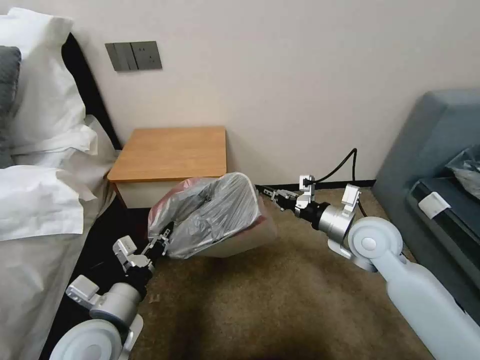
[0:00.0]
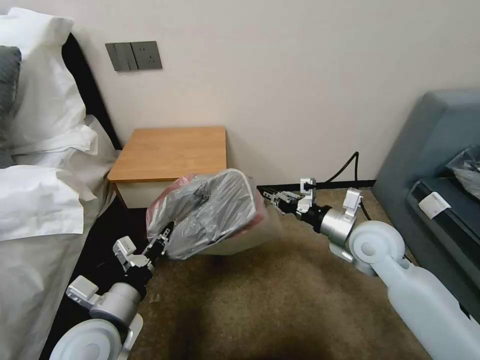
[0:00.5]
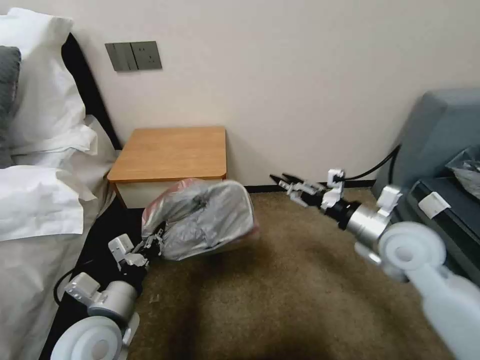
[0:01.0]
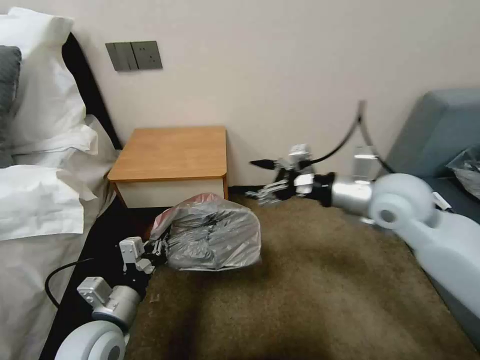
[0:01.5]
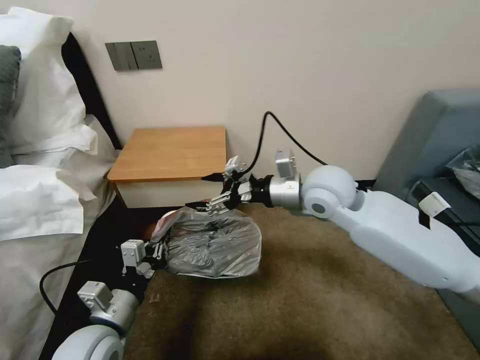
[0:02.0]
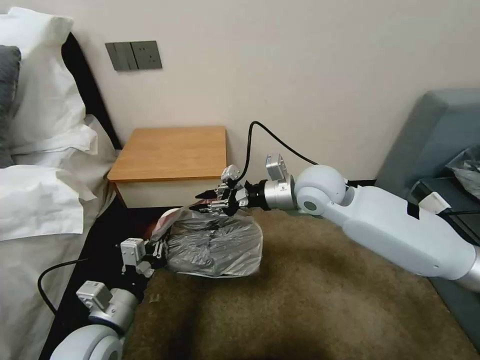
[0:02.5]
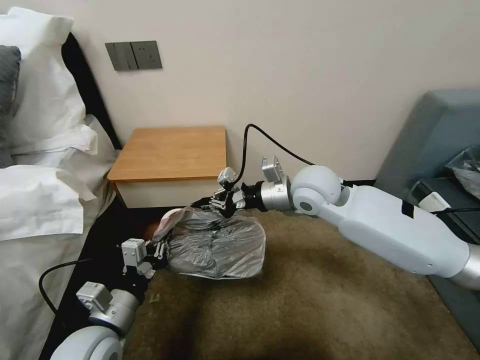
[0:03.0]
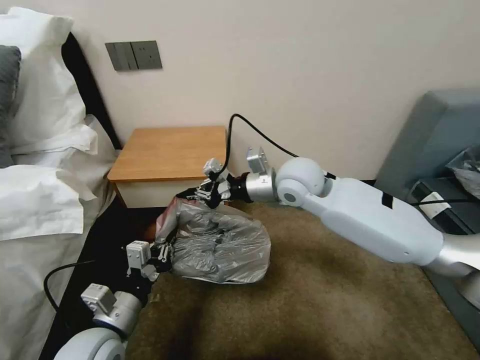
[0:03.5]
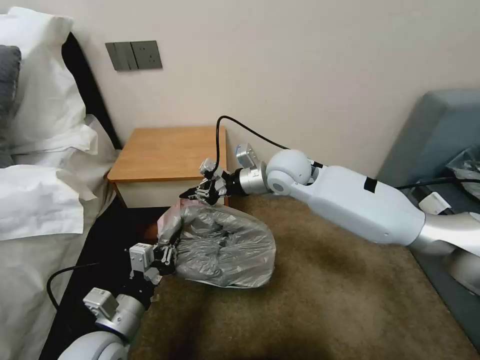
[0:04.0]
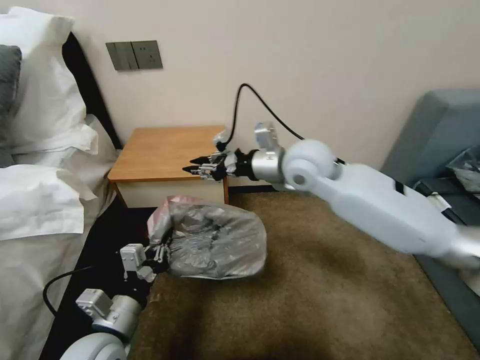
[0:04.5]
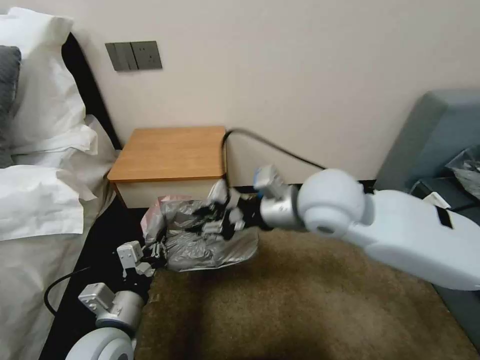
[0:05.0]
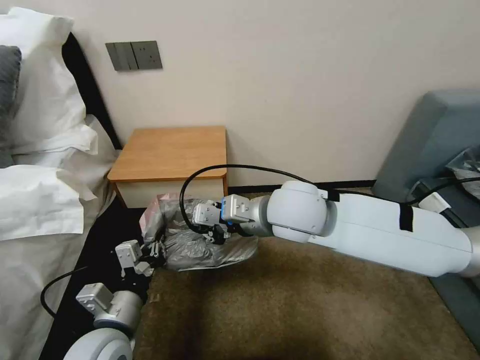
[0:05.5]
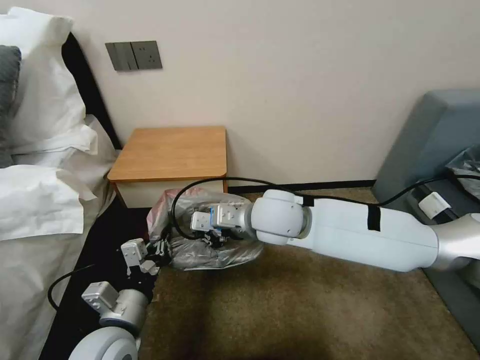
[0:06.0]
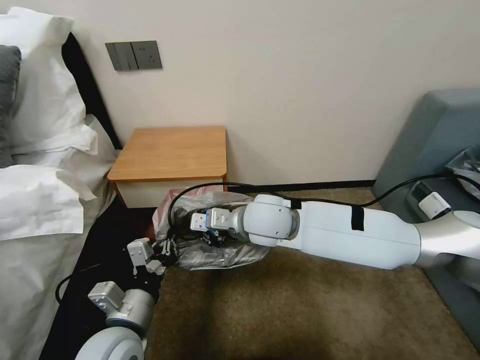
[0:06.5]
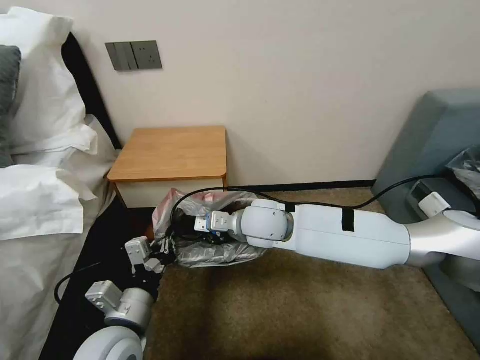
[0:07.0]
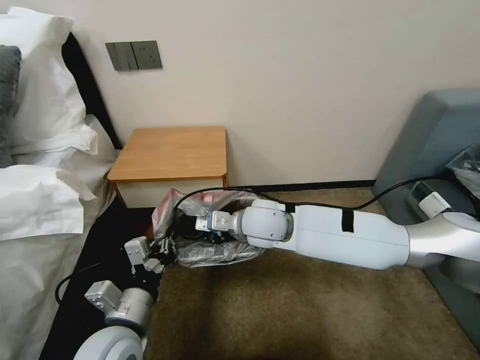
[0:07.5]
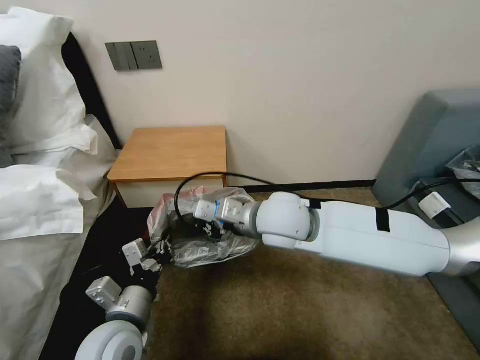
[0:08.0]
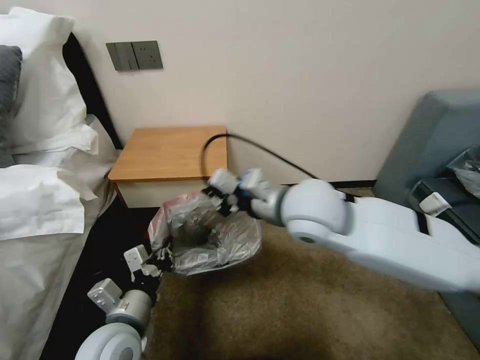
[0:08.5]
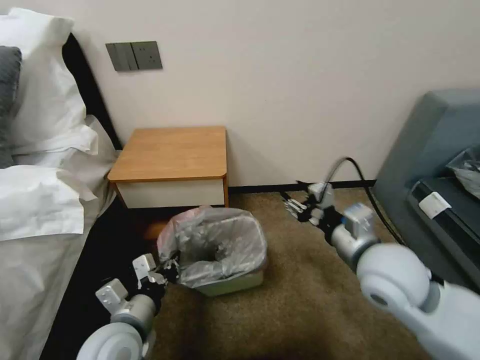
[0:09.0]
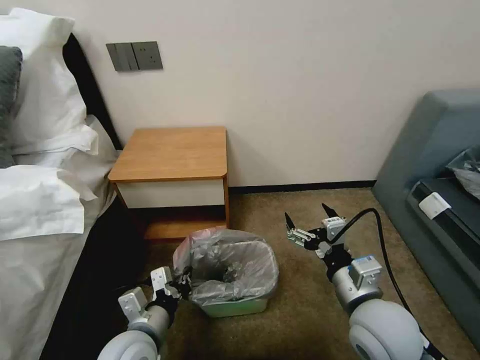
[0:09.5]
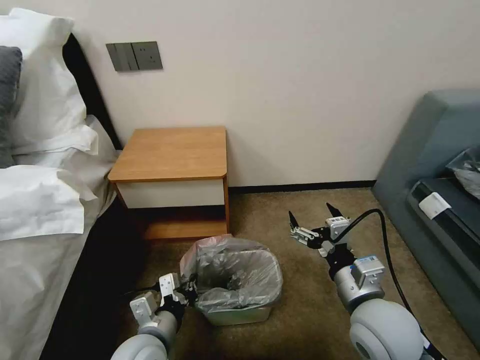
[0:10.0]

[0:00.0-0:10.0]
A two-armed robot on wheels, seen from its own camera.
Task of the whole recording: Pick up the garbage bag from the table and place it over the trash can.
0:00.0 to 0:02.0: The right gripper goes some 15 cm to the left, upward and forward, and opens.
0:02.0 to 0:04.0: The right gripper shifts roughly 10 cm forward and to the left, and closes.
0:04.0 to 0:06.0: The right gripper goes roughly 10 cm backward, and opens, then closes again.
0:06.0 to 0:08.0: There are only small adjustments of the grippers.
0:08.0 to 0:10.0: The right gripper shifts roughly 25 cm to the right, backward and downward, and opens its fingers; the left gripper is displaced downward by approximately 5 cm.

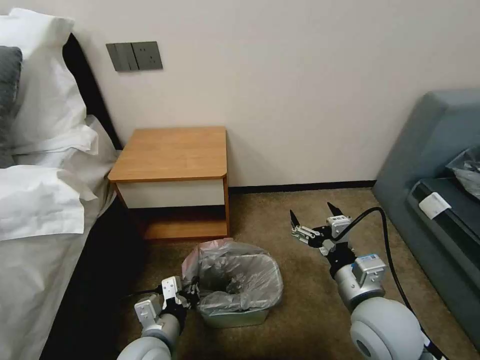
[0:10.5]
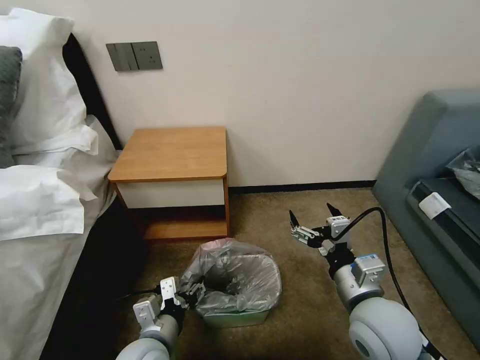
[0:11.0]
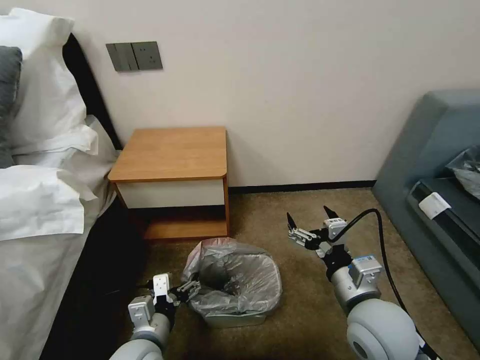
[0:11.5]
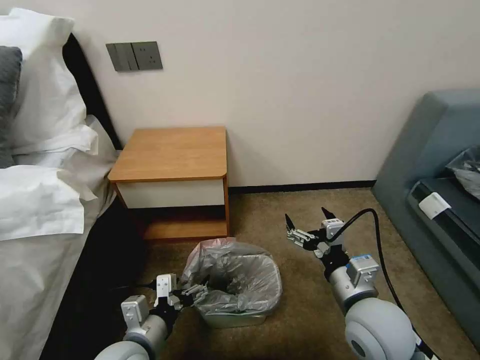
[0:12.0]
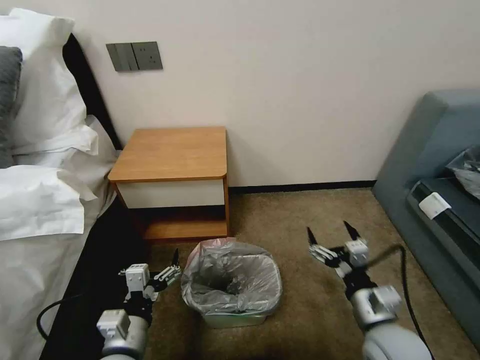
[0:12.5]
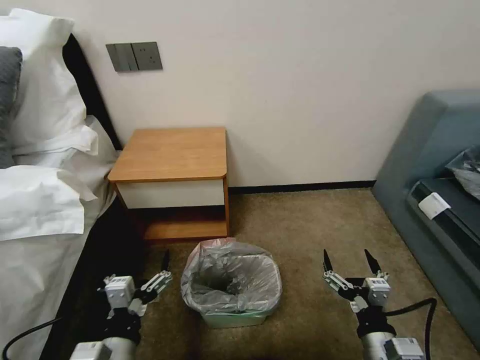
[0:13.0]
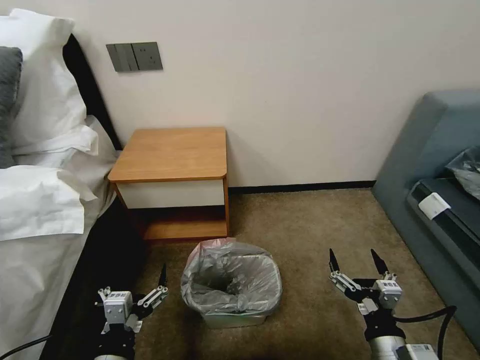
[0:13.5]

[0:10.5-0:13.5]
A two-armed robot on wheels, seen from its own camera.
Task of the whole recording: Pick up the garbage bag from the table and place it over the trash can.
0:10.5 to 0:12.0: The left gripper opens its fingers.
0:12.0 to 0:13.5: The left gripper is displaced backward by some 10 cm, while the right gripper goes some 15 cm backward and downward.

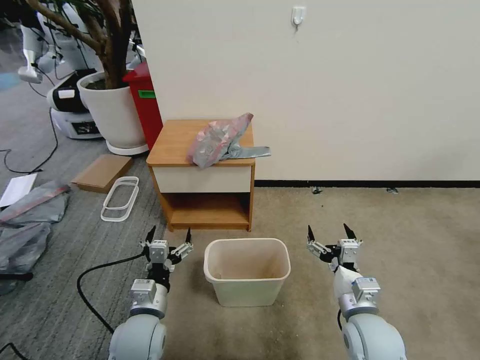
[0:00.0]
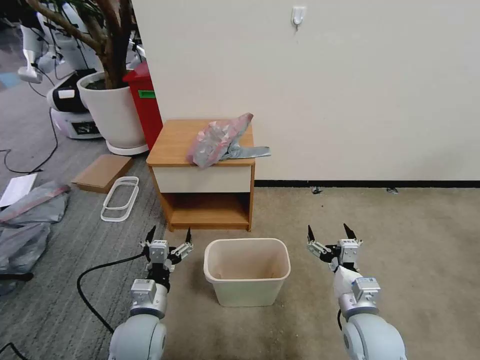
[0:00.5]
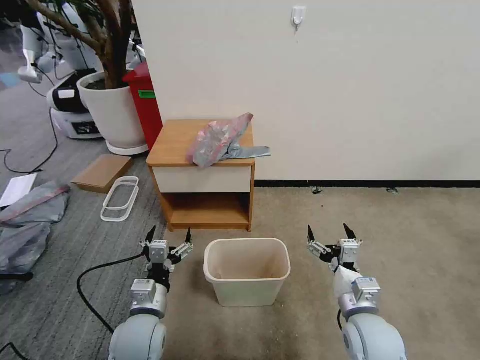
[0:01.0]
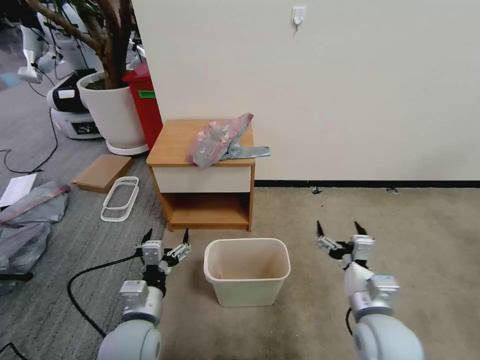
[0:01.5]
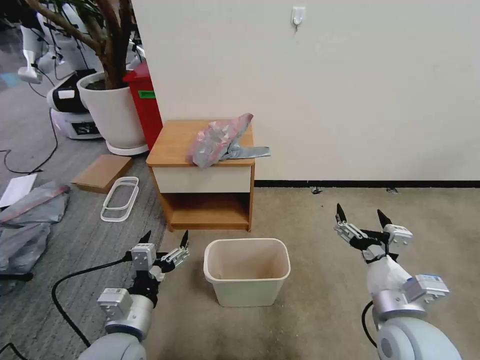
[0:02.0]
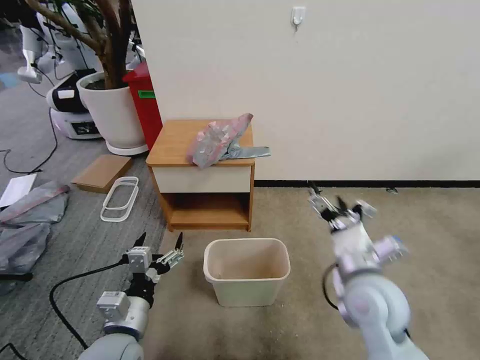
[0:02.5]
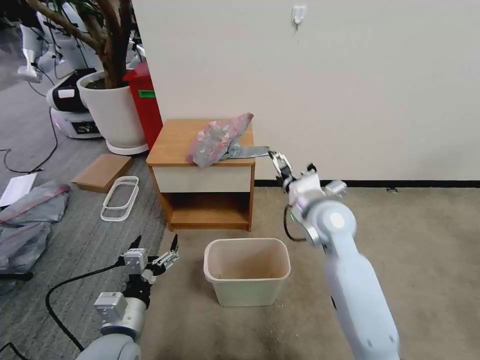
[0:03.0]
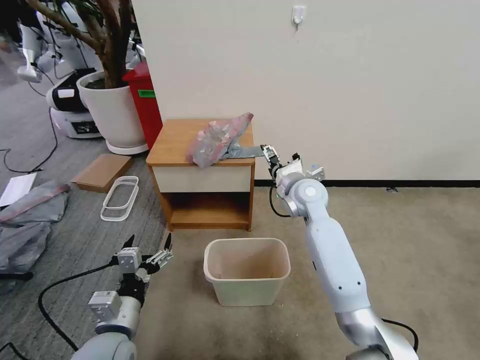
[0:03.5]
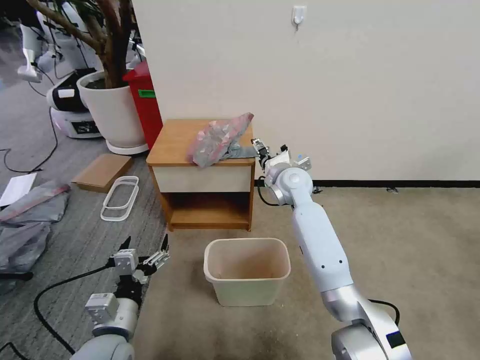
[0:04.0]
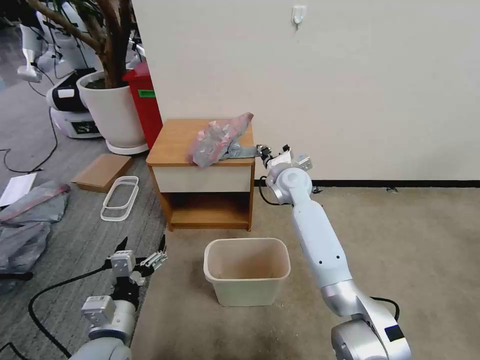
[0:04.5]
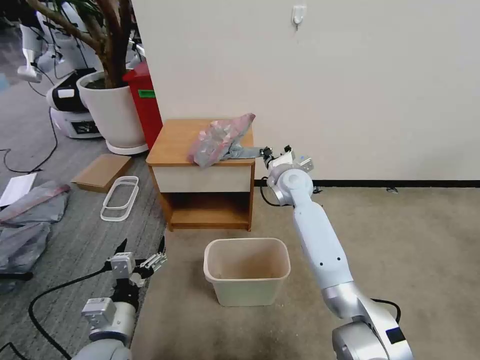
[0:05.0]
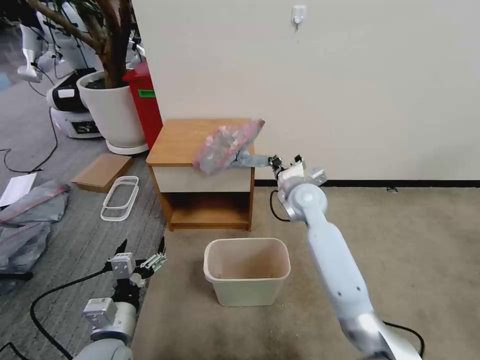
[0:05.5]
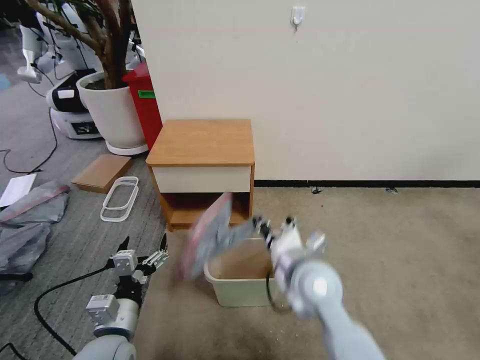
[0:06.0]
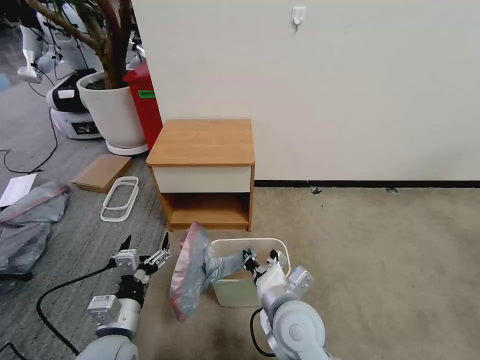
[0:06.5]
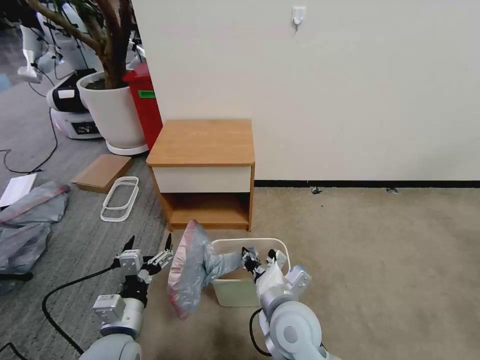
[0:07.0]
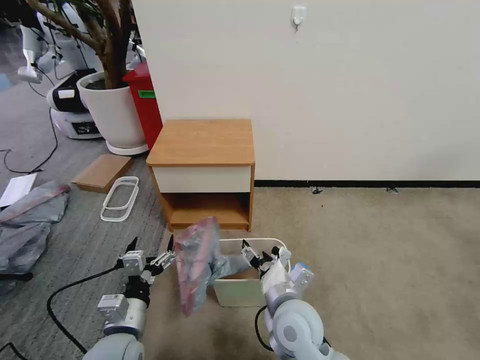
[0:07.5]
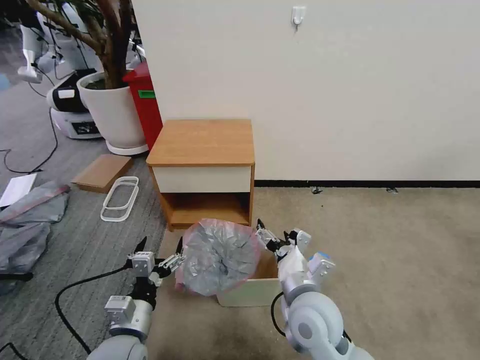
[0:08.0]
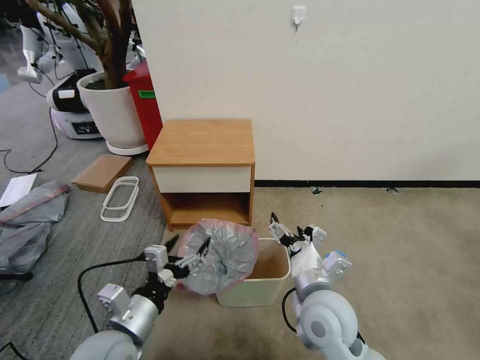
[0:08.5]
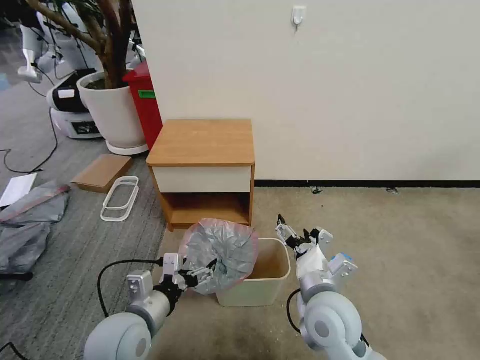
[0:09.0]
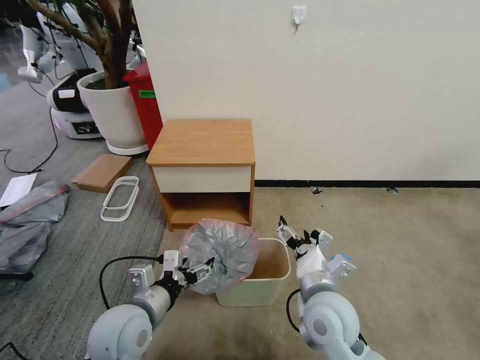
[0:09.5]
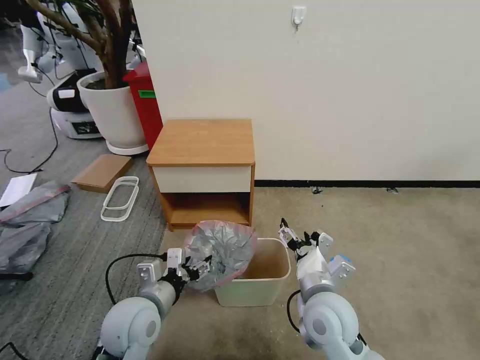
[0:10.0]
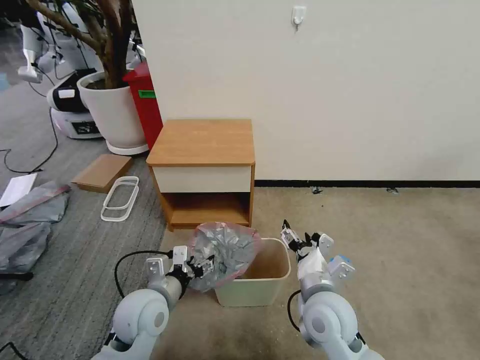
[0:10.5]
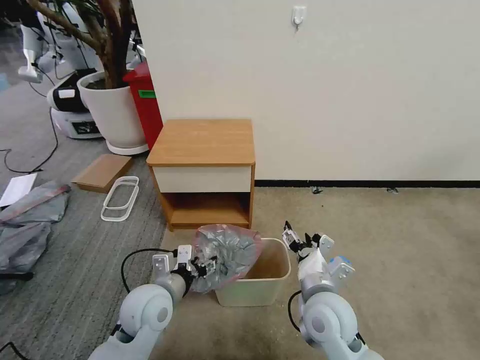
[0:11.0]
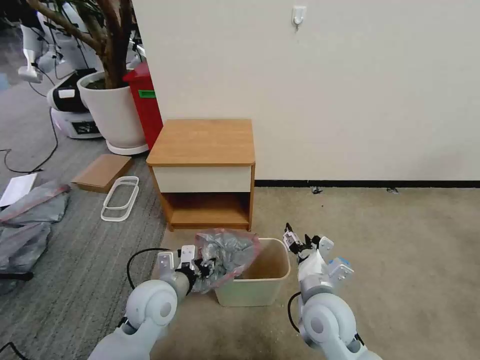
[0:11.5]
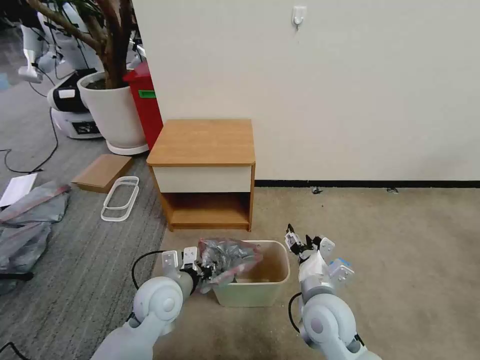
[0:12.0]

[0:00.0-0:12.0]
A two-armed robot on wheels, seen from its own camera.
Task of the whole recording: Pick up the garbage bag from the table and place it over the trash can.
0:02.0 to 0:04.0: The right gripper is displaced forward by about 35 cm.
0:04.0 to 0:06.0: The right gripper goes some 25 cm backward, and closes its fingers.
0:06.0 to 0:08.0: The right gripper opens.
0:08.0 to 0:10.0: The left gripper shifts some 5 cm forward.
0:10.0 to 0:12.0: The left gripper is displaced forward by some 5 cm.
